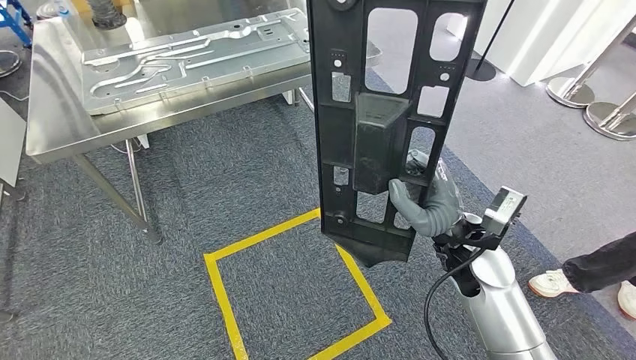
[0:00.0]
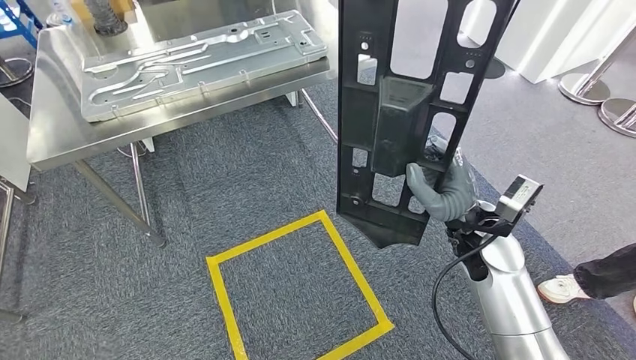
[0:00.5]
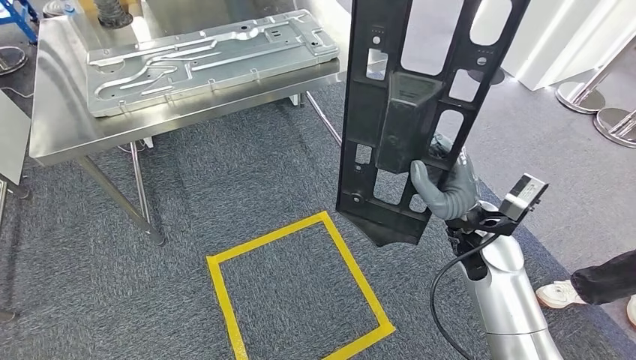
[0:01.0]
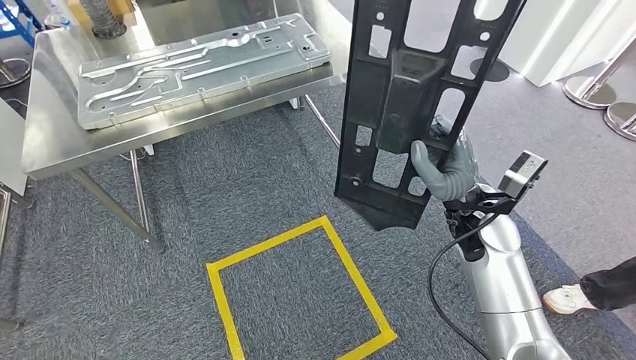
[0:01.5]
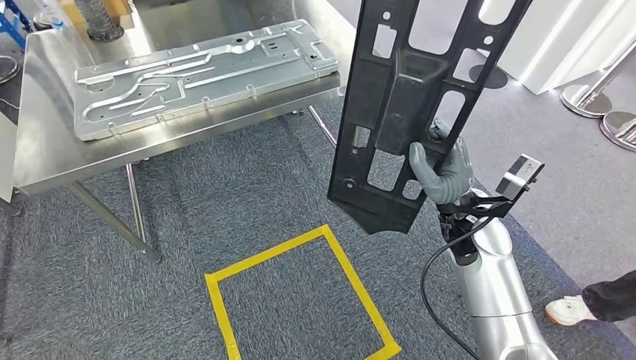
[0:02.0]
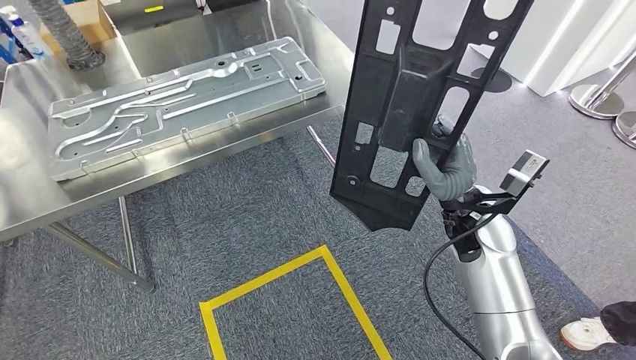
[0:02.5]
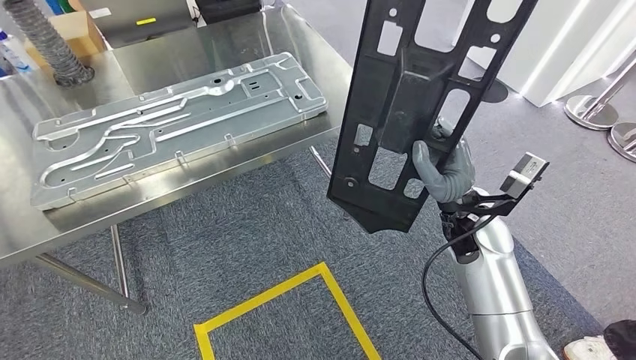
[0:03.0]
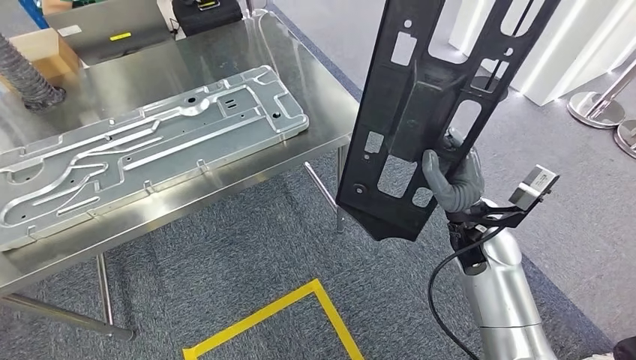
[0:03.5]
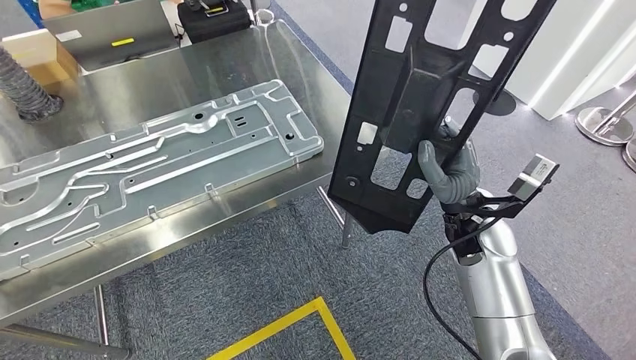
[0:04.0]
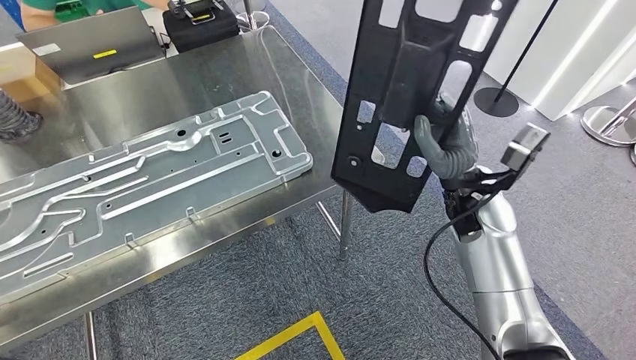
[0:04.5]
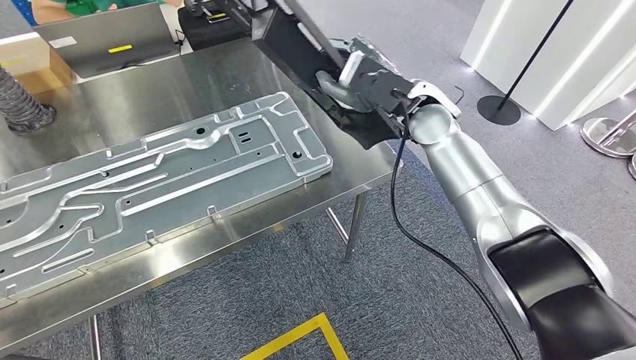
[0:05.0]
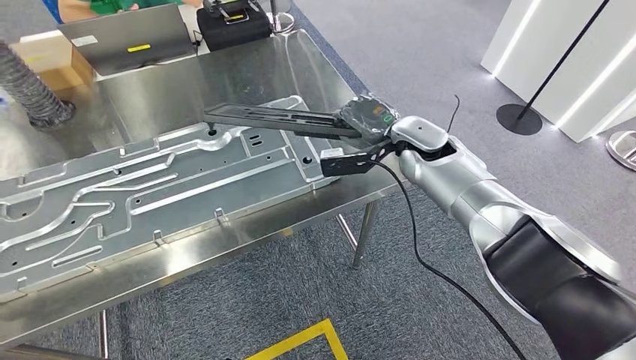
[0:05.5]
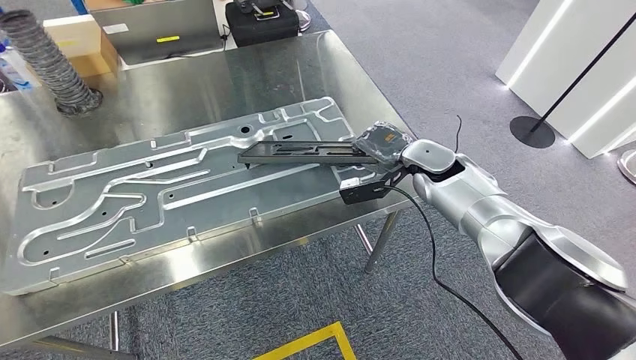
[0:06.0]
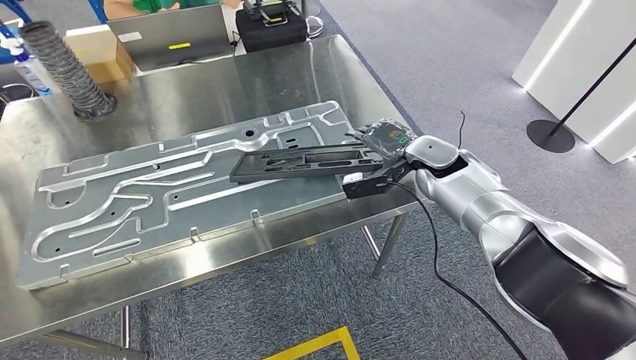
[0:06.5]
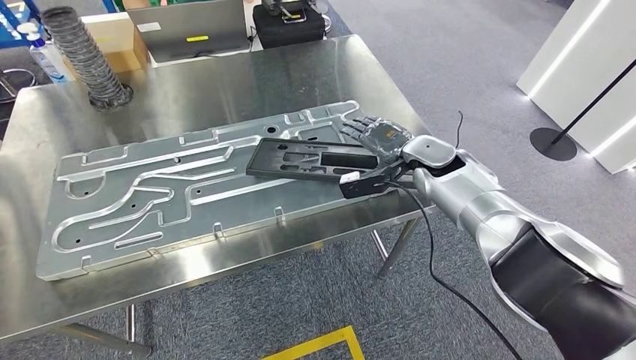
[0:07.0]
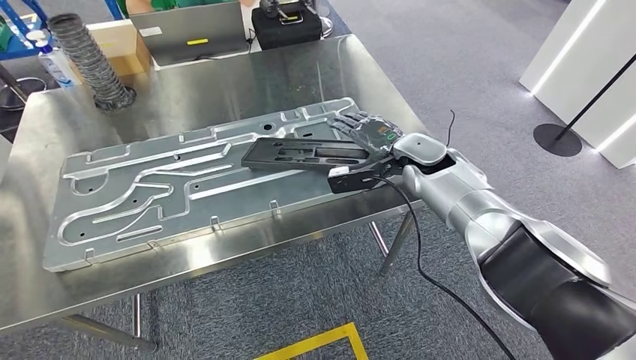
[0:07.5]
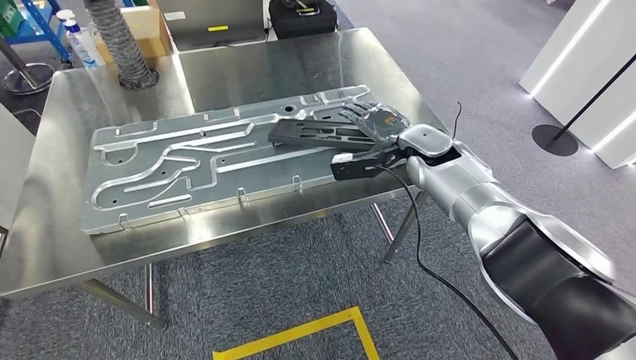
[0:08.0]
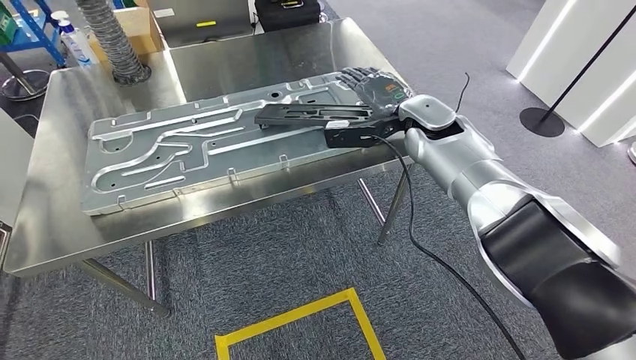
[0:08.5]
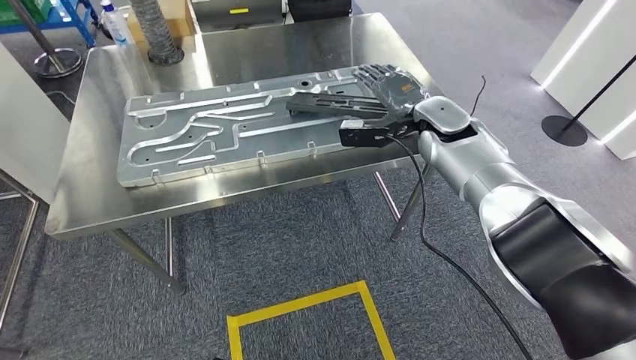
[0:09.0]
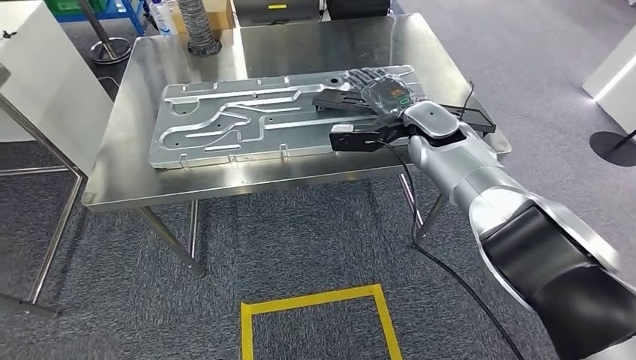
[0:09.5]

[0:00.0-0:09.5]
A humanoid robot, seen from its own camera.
Step, 0:00.0 to 0:04.0: Move the large material to the front of the workbench.
Step, 0:05.0 to 0:07.0: Insert the large material into the corresponding hole on the workbench.

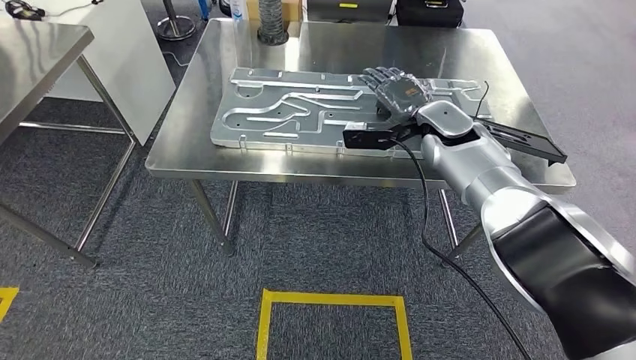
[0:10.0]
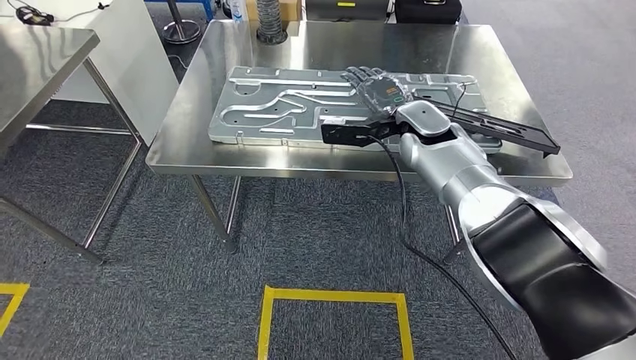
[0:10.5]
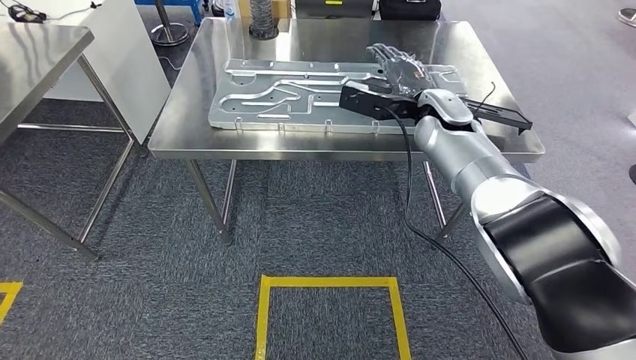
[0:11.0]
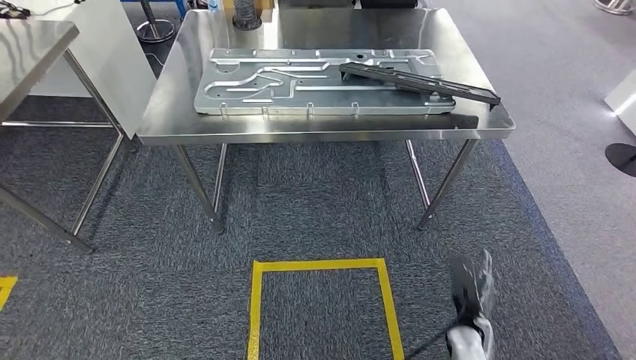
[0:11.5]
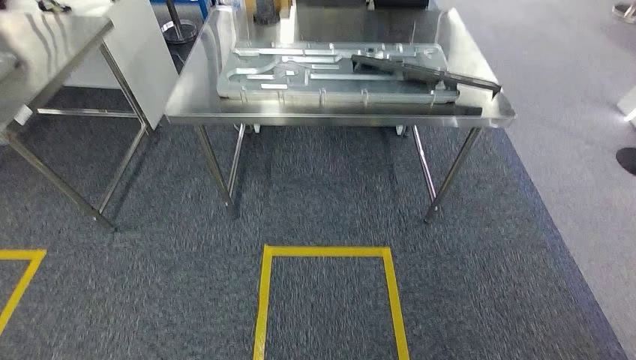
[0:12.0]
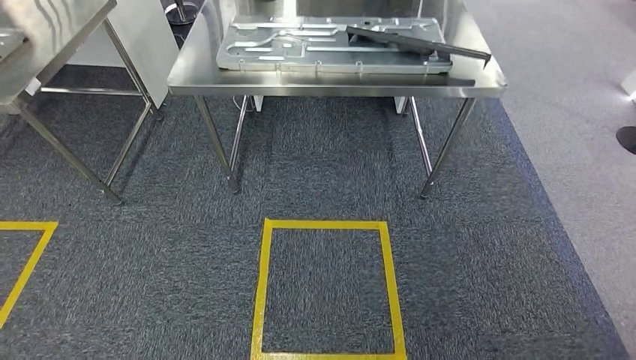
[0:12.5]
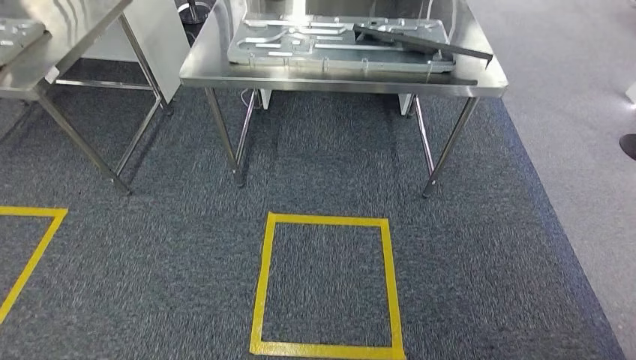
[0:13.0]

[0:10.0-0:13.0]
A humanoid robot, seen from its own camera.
Step, 0:10.0 to 0:13.0: Move to the initial position of the shelf.
